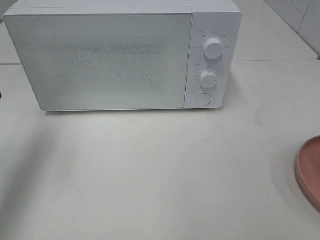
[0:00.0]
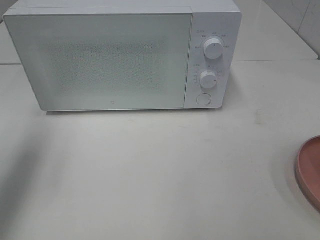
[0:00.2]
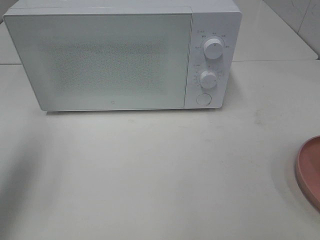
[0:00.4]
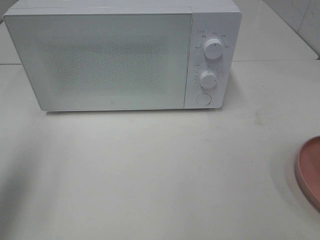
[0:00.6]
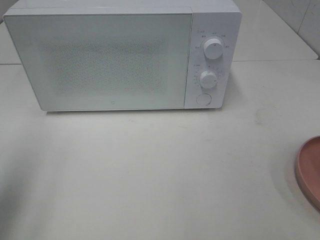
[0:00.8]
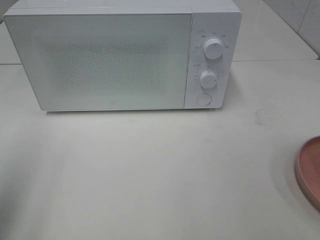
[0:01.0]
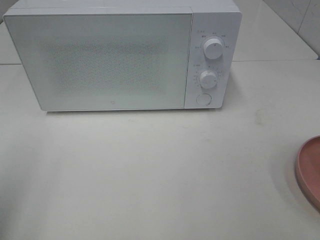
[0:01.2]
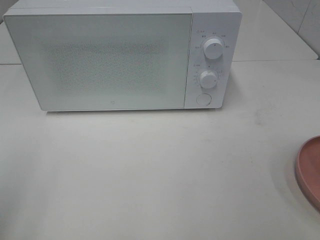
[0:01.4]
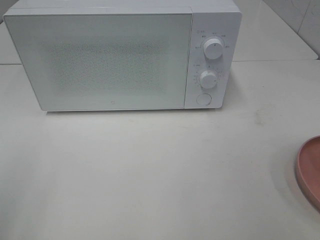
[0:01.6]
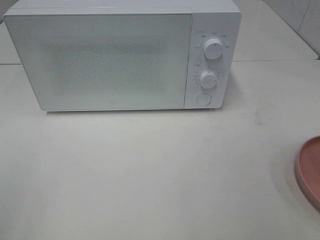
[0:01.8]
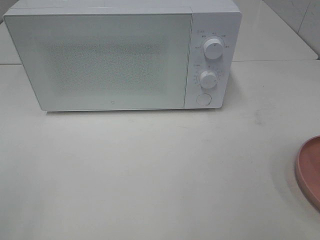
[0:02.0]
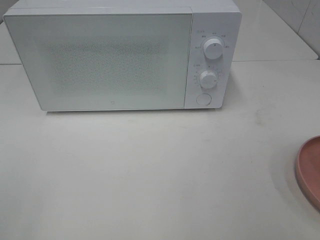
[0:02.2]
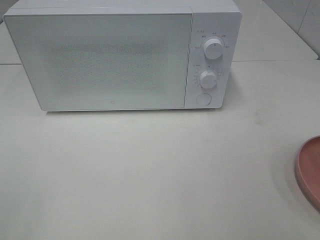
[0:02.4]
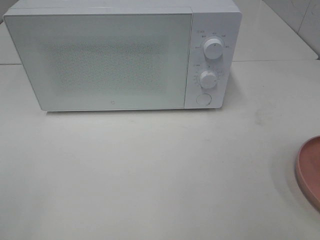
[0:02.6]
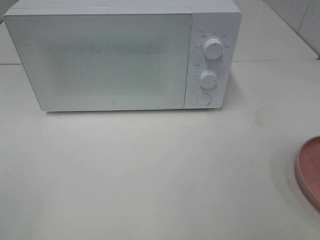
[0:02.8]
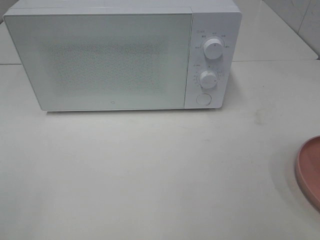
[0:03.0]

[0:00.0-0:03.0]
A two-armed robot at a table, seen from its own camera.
Task of the whole recording: Heat the burger.
0:00.0 to 0:01.6: The left gripper travels backward by roughly 20 cm.

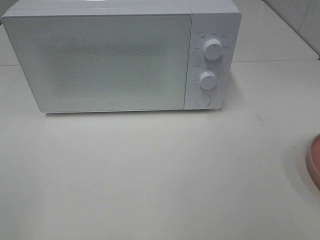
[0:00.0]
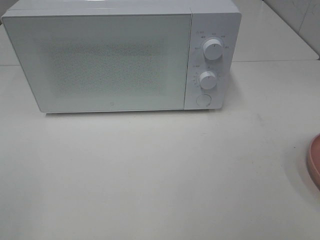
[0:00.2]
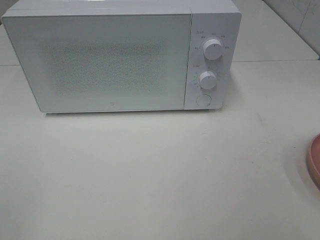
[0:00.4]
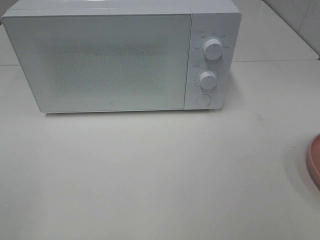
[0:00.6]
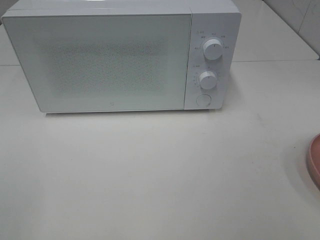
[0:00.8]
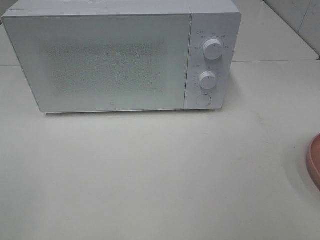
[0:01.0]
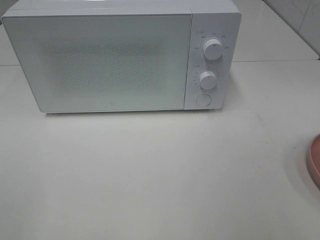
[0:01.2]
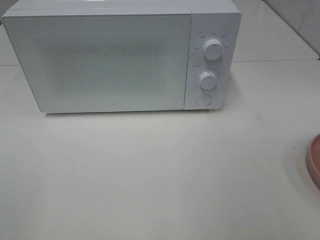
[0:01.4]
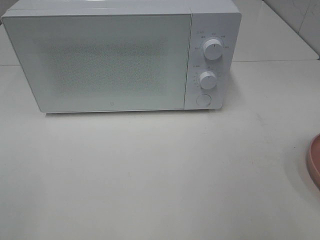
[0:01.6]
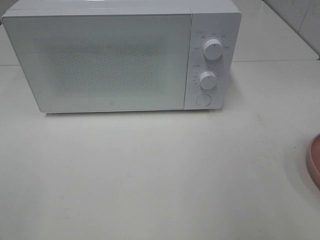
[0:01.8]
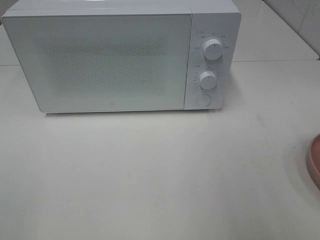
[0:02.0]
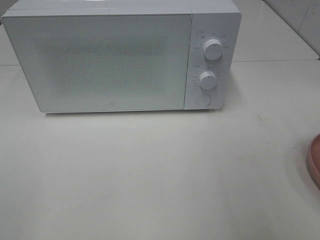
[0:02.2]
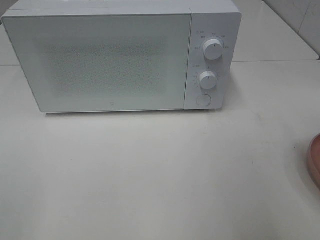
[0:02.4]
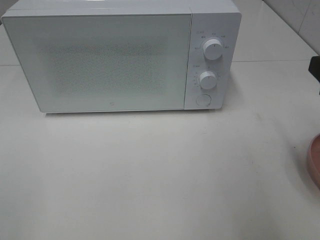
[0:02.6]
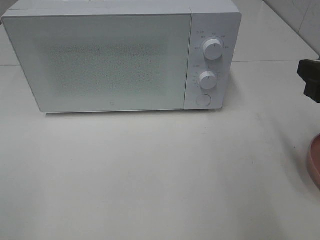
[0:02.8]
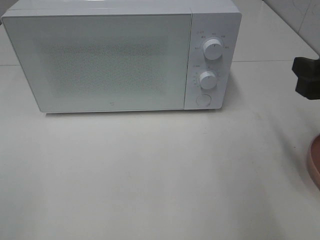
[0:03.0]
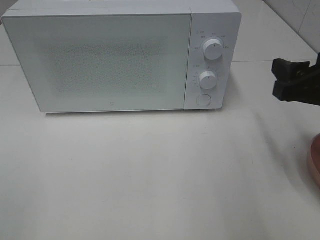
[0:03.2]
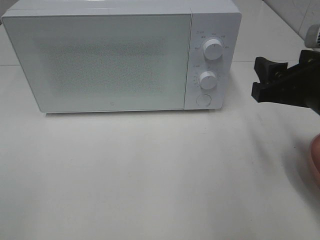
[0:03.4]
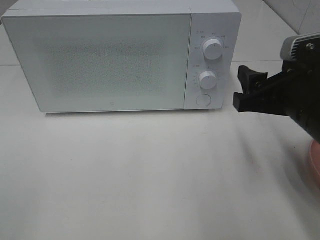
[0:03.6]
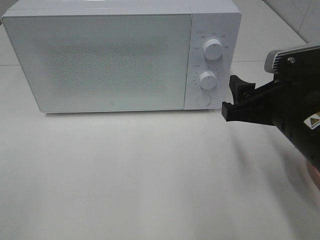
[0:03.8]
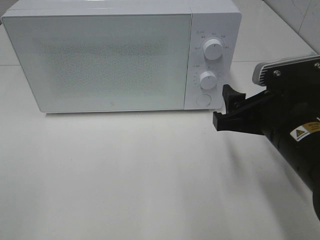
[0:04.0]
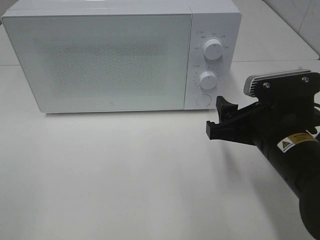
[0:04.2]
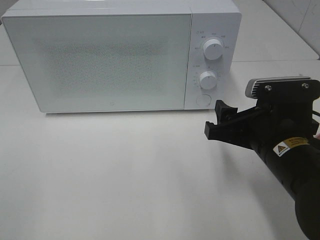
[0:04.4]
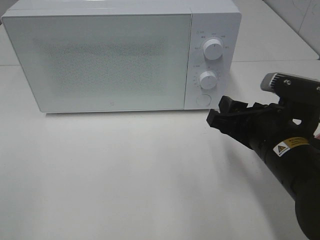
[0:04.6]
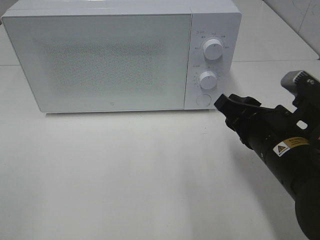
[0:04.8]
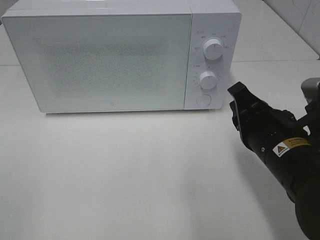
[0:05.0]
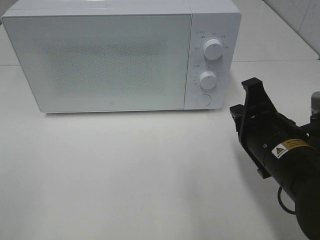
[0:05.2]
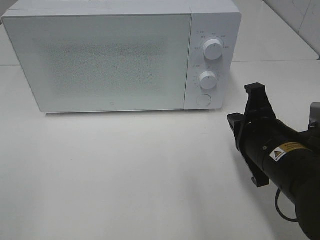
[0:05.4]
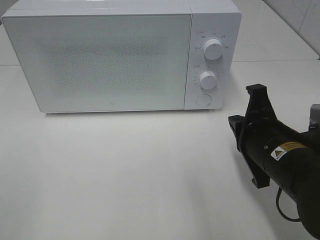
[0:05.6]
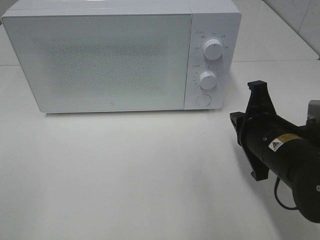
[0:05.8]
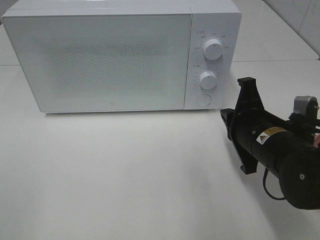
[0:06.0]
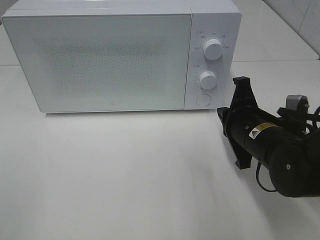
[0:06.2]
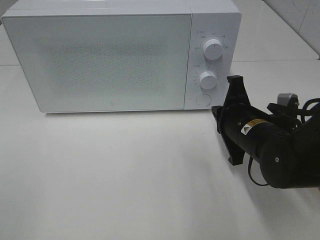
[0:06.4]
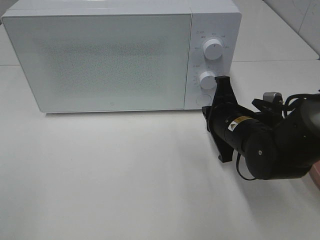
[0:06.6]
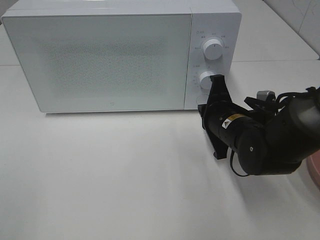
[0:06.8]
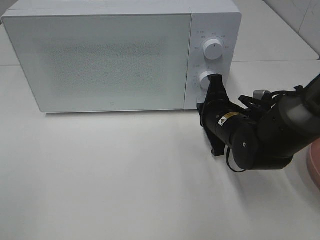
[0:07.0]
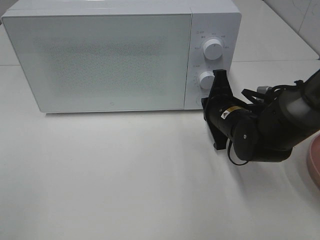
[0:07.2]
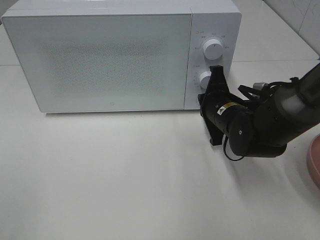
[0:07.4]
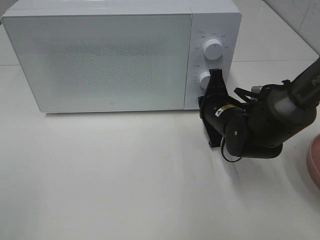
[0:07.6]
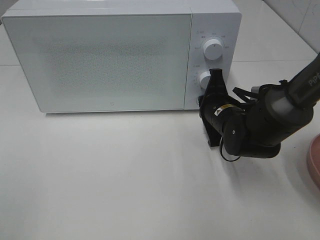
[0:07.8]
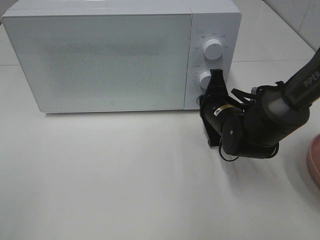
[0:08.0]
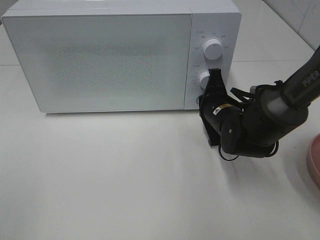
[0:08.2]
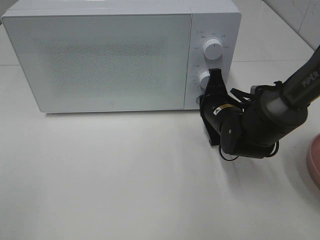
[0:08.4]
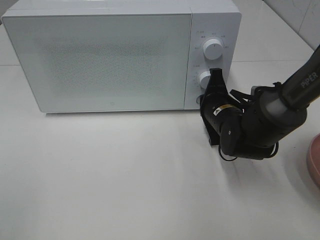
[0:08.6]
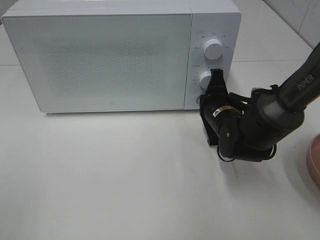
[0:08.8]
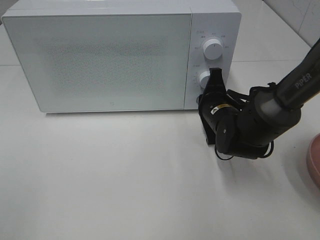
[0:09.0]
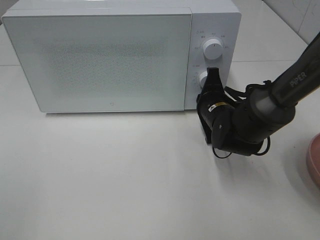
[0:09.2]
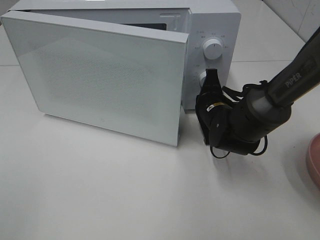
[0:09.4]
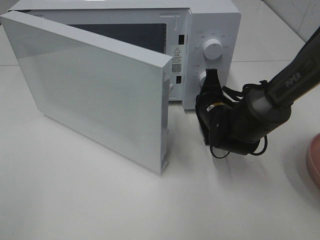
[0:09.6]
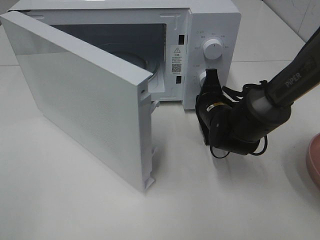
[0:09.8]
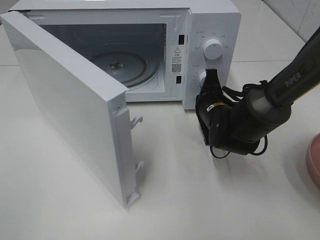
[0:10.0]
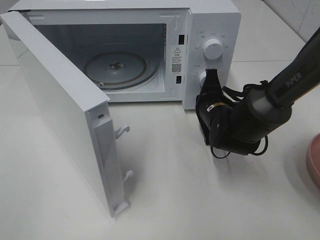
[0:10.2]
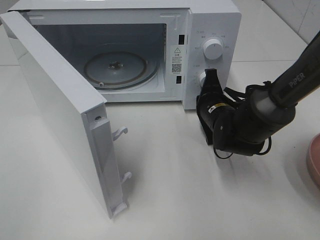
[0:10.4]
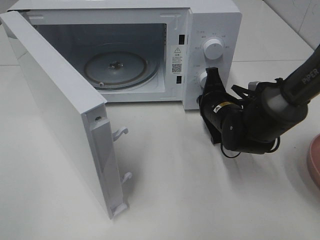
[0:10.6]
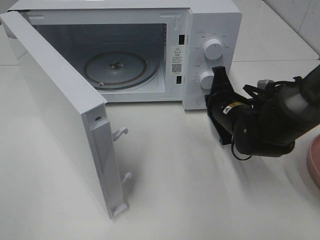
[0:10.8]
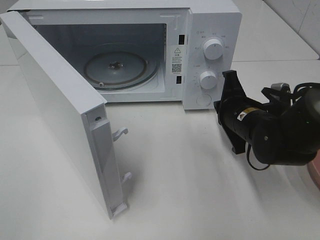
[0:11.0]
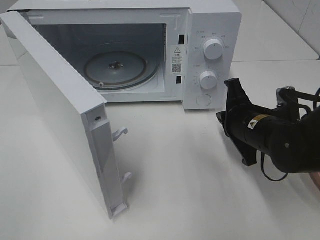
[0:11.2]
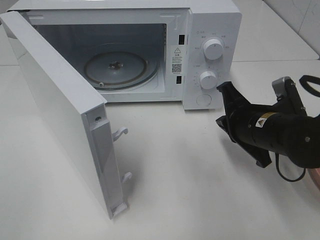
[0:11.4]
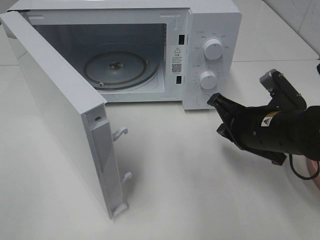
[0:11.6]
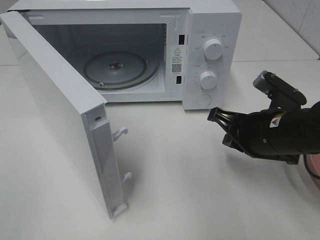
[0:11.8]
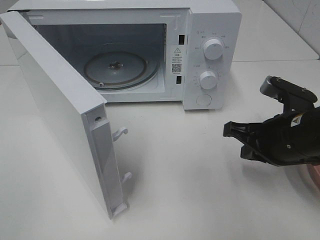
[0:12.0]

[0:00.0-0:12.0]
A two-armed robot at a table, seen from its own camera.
Task of the whole recording: Heat the burger.
Step, 0:00.0 to 0:11.0: Right hand: press the switch.
0:01.6 to 0:03.0: The right gripper is displaced forward and downward by approximately 15 cm.
0:03.0 to 0:04.4: The right gripper heads to the left and downward, covering approximately 15 cm.
0:04.4 to 0:06.0: The right gripper closes its fingers.
0:06.0 to 0:07.6: The right gripper is displaced forward by roughly 10 cm.
0:07.6 to 0:09.0: The grippers make only small movements.
0:10.4 to 0:12.0: The right gripper moves backward, to the right and upward, roughly 15 cm.

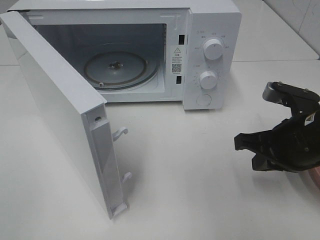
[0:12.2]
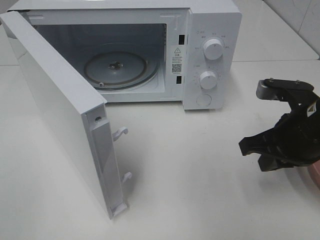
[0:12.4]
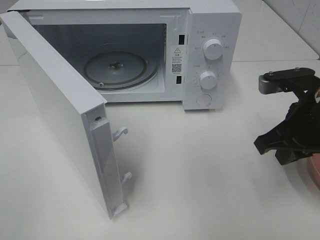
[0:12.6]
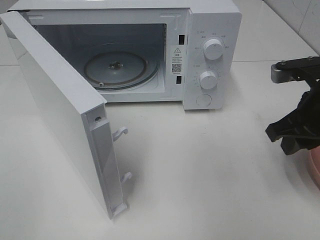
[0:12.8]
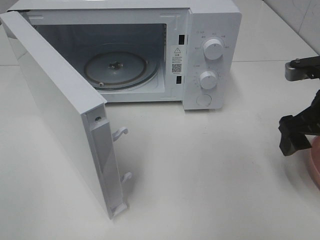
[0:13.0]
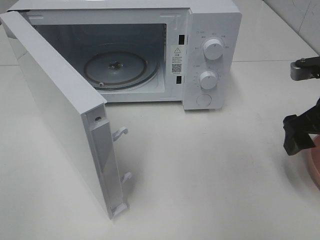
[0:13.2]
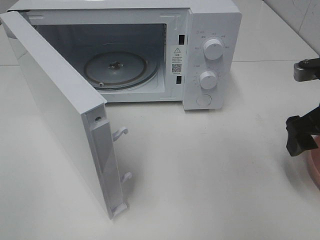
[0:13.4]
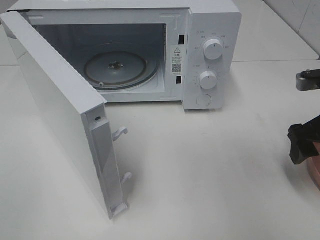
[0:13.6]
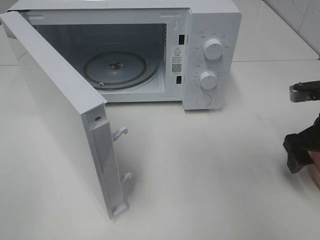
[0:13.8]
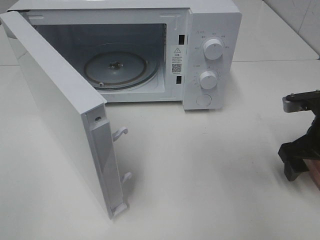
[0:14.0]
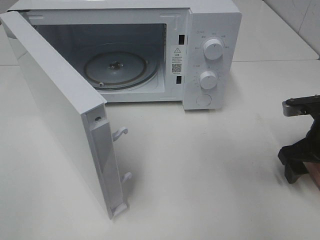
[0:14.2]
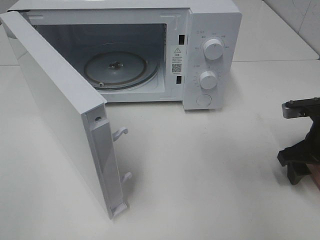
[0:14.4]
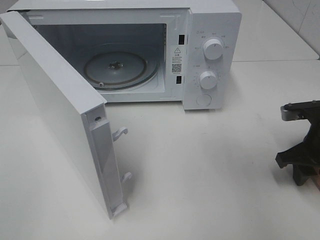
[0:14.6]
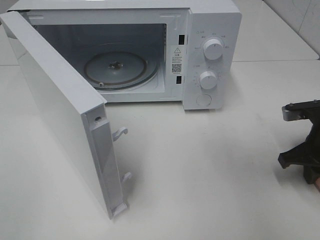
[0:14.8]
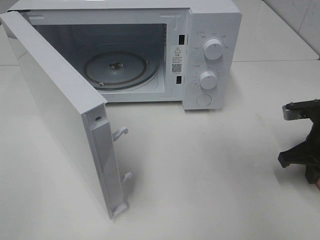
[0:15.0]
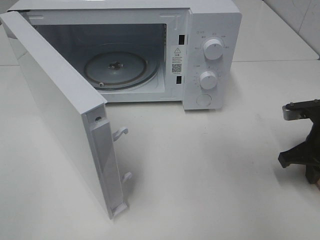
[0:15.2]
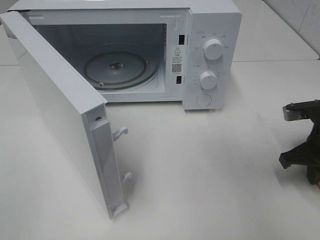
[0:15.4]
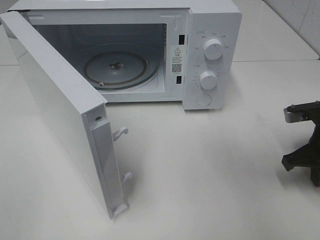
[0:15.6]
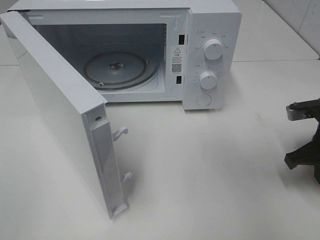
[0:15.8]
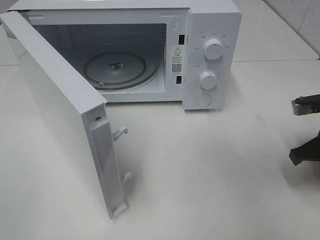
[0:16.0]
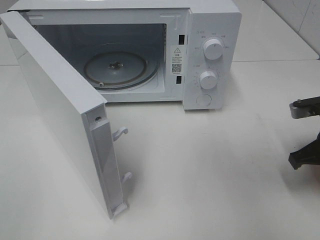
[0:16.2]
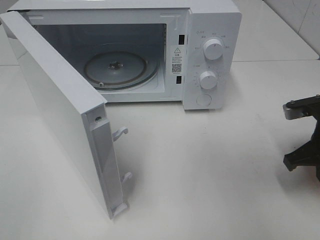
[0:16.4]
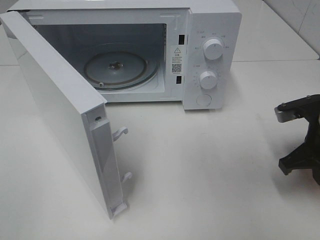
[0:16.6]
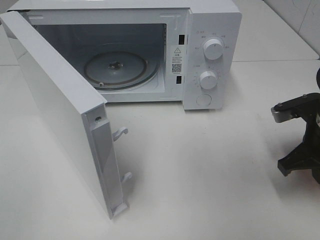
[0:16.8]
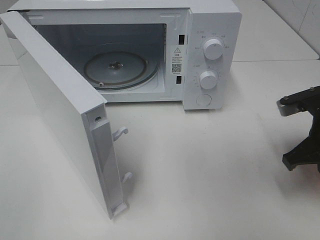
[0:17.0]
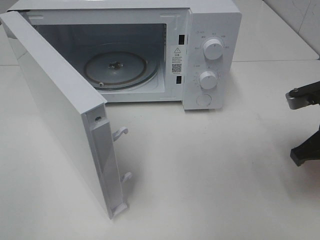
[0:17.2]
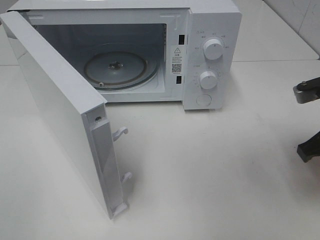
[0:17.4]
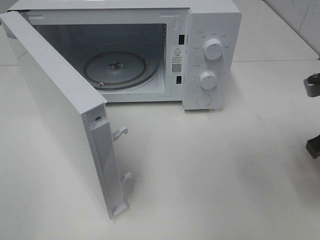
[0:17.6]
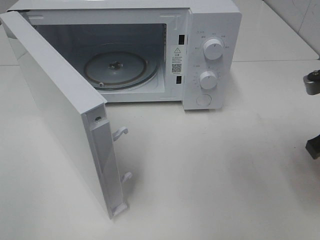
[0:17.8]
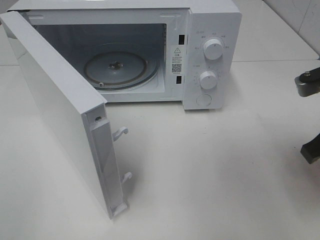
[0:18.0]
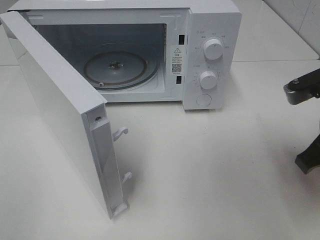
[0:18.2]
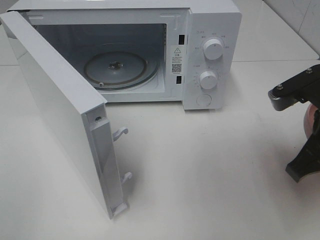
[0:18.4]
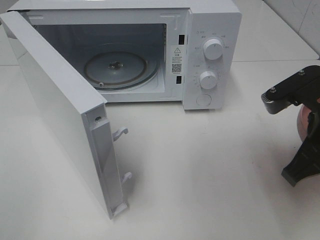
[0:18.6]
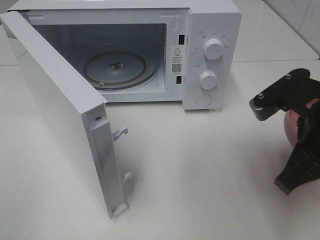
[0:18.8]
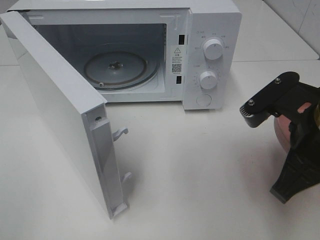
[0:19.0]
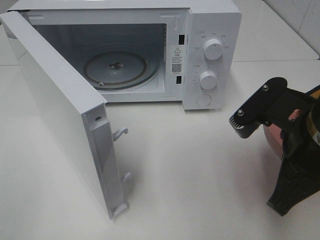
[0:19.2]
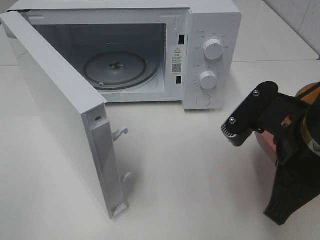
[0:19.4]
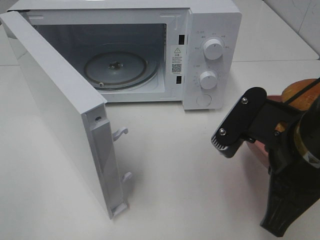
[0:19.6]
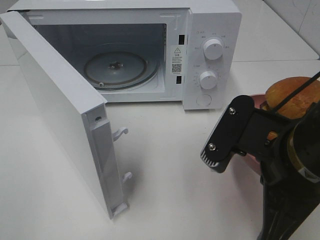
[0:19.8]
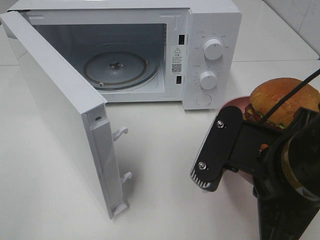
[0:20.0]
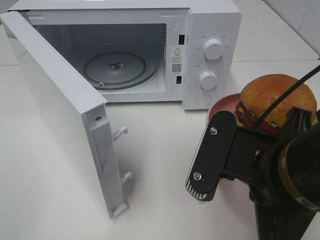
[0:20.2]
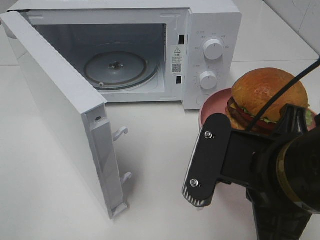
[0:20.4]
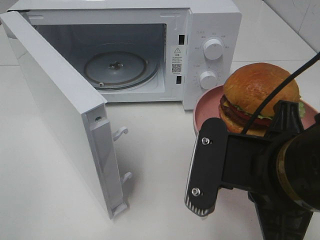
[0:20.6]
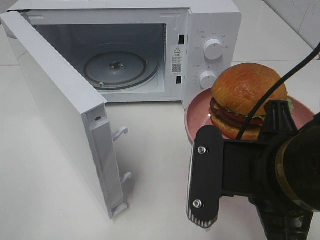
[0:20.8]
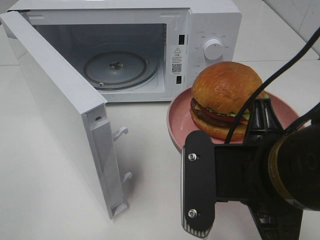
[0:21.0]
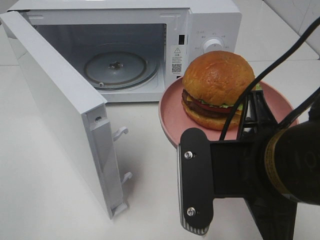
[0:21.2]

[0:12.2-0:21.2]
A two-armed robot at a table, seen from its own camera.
Task of the whole recording: Heat the burger.
Step, 0:12.2 to 0:15.8: Right hand: grab the plate with the hamburger.
0:12.2 to 0:13.8: The right gripper is displaced to the right by some 5 cm, and opens up.
0:13.8 to 0:15.2: The right gripper closes up.
0:15.2 to 0:16.6: The grippers make only small movements.
0:16.6 to 0:18.2: The right gripper heads upward and backward, covering about 10 cm.
0:18.2 to 0:19.8: The right gripper shifts about 10 cm to the left and backward.
